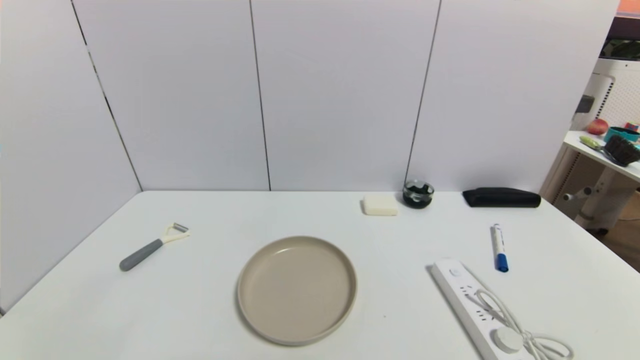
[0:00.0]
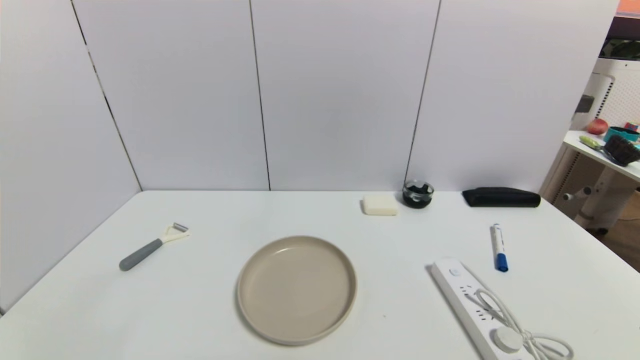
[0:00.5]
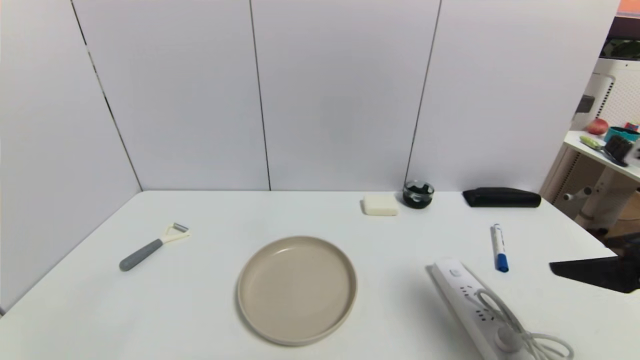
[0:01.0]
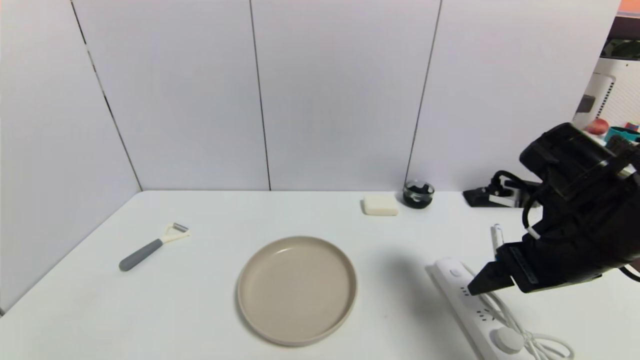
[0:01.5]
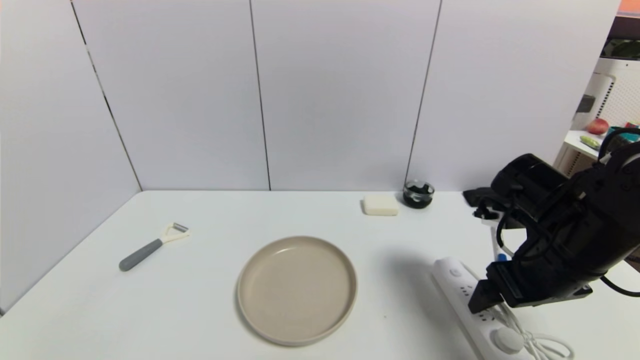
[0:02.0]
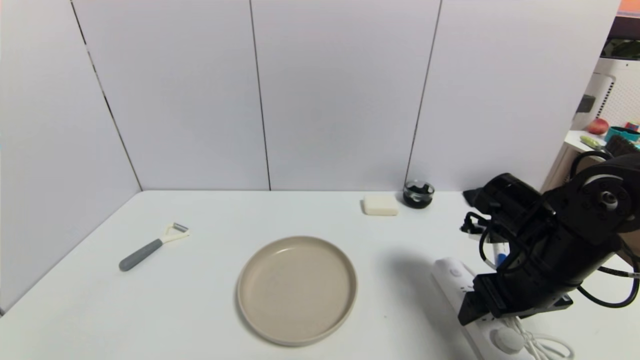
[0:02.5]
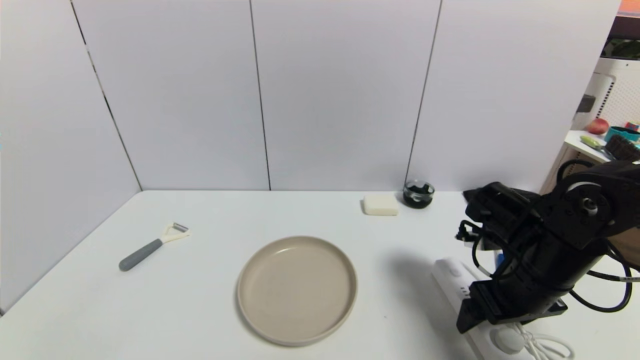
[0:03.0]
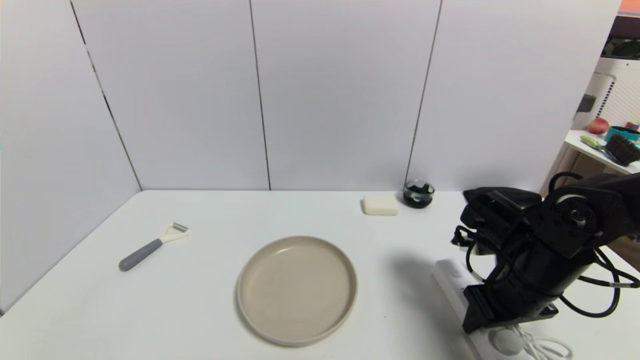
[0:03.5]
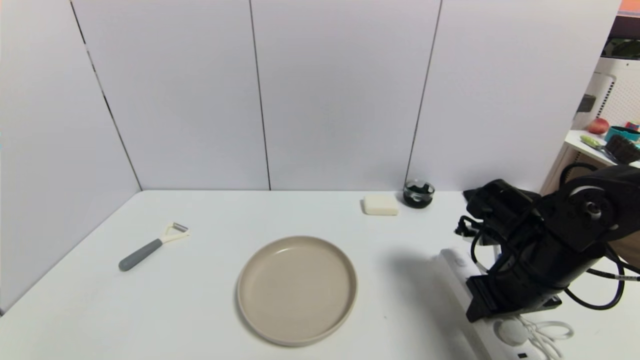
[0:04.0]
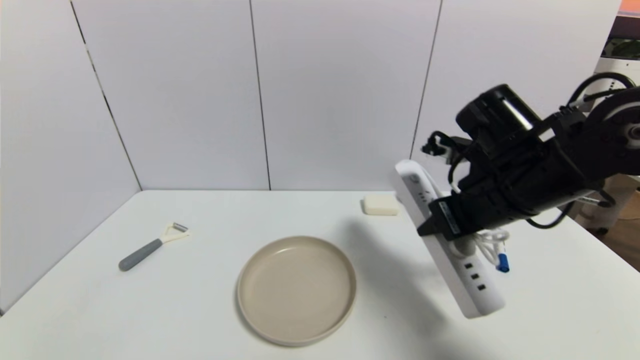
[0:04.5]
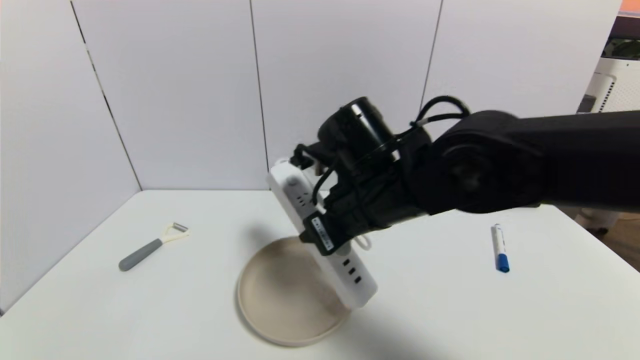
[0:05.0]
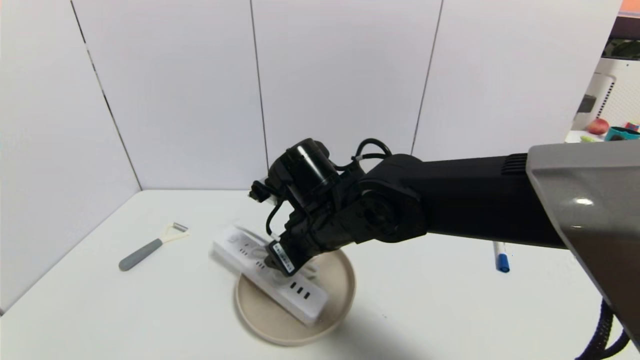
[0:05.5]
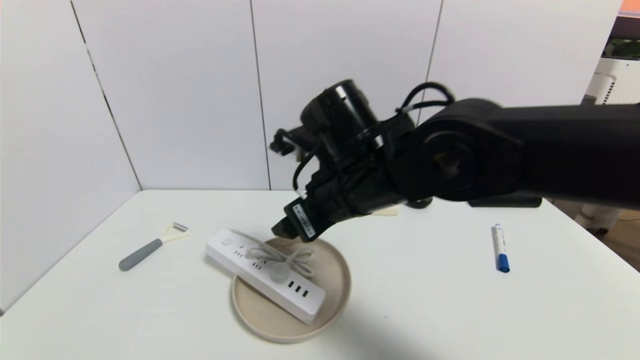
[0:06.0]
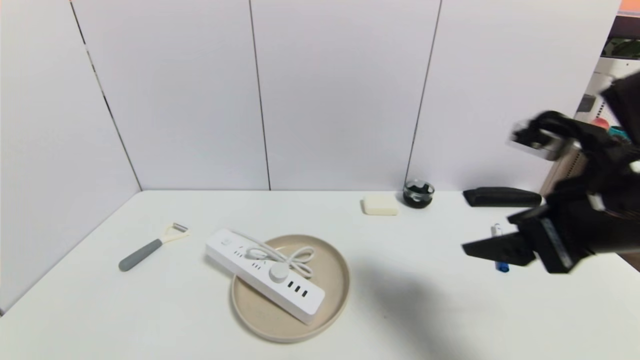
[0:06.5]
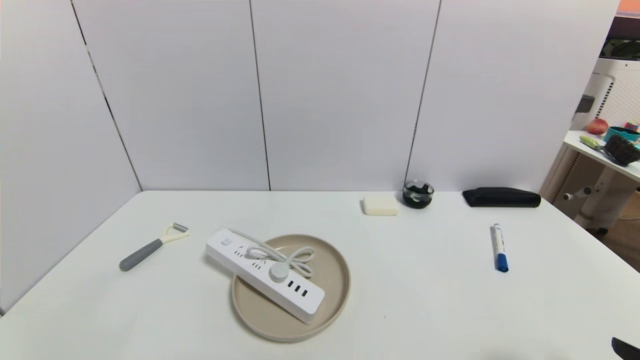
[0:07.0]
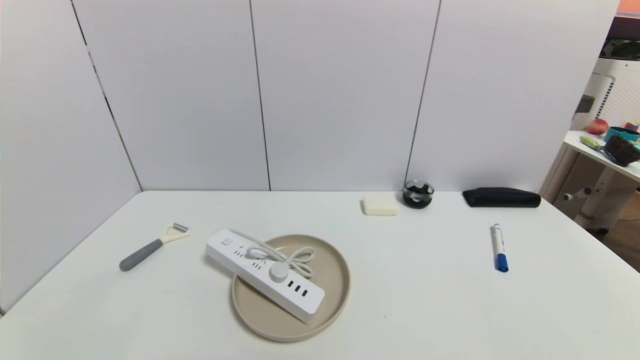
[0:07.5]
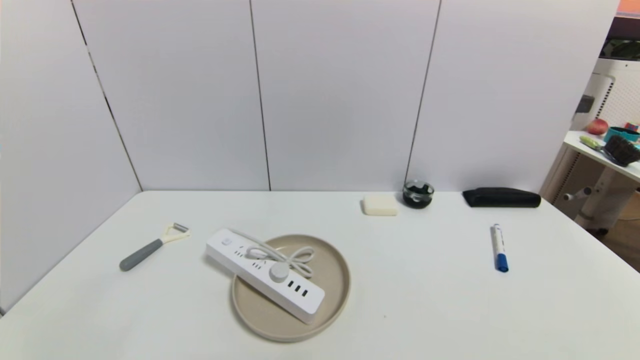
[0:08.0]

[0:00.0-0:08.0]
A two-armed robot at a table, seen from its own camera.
Task of the whole recording: use a gripper to pick the target object and place on the brown plate.
Step, 0:00.0 to 0:03.5: Grasp the plugboard with the right gripper.
Step, 0:04.0 to 0:05.5: Place the plugboard on the brown plate with the right gripper.
0:00.0 to 0:02.0: The right gripper travels forward by some 25 cm.
0:02.0 to 0:04.0: The right gripper closes its fingers.
0:04.0 to 0:06.0: The right gripper moves to the left and upward, about 25 cm, and opens its fingers.
0:06.0 to 0:08.0: The right gripper goes approximately 40 cm to the right, backward and downward.

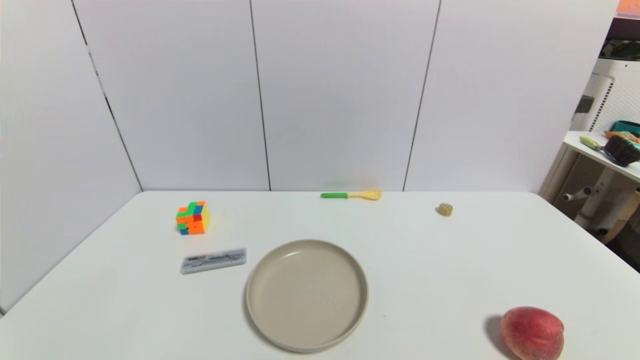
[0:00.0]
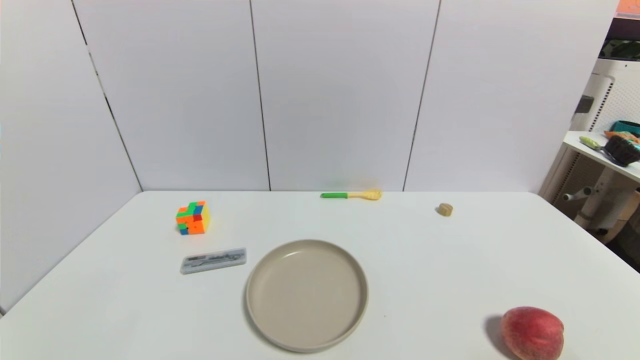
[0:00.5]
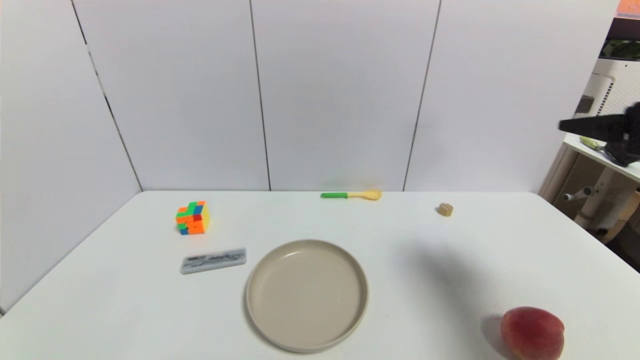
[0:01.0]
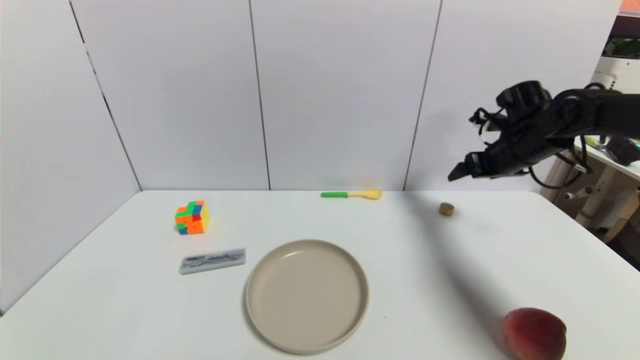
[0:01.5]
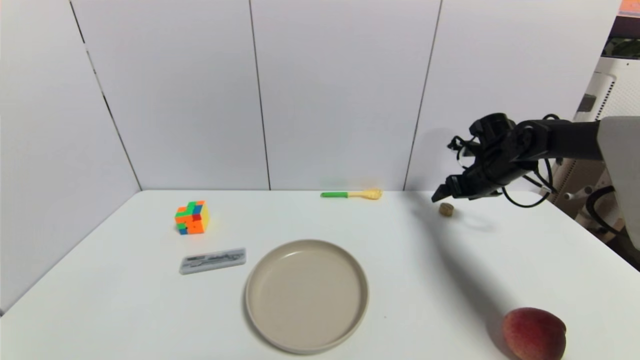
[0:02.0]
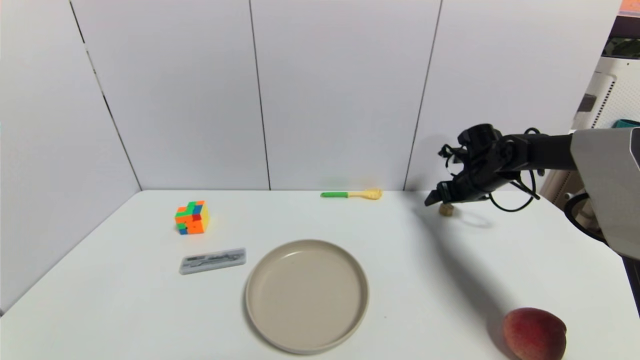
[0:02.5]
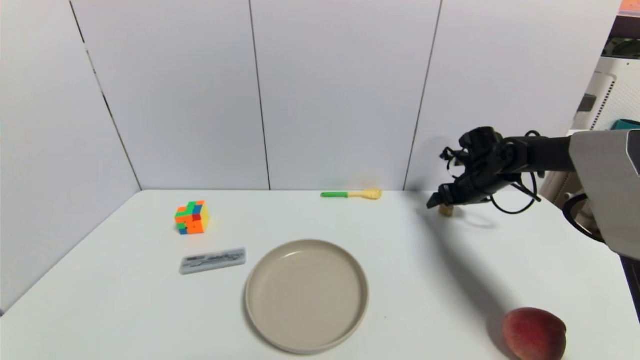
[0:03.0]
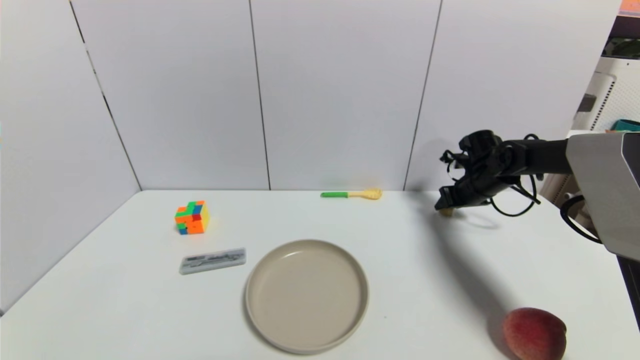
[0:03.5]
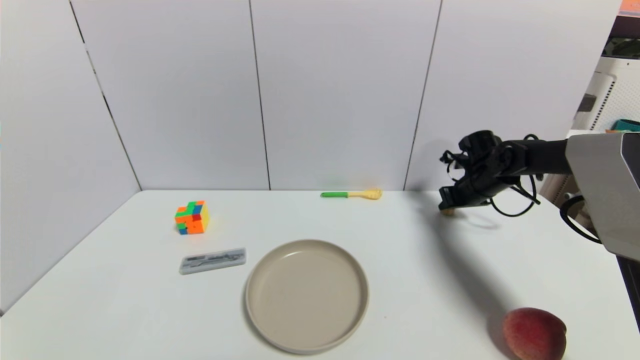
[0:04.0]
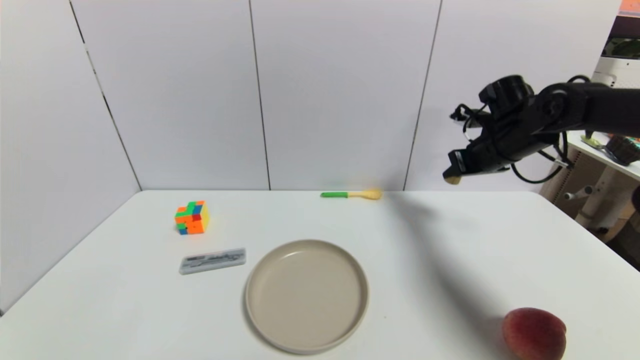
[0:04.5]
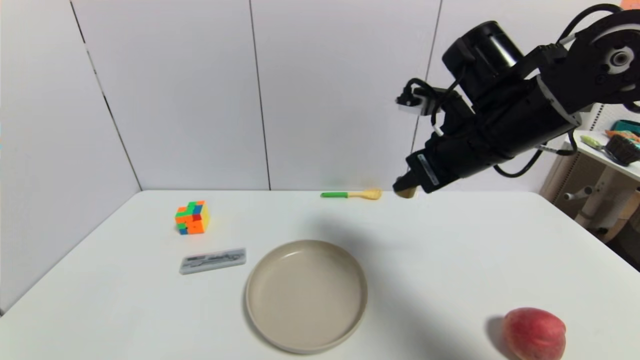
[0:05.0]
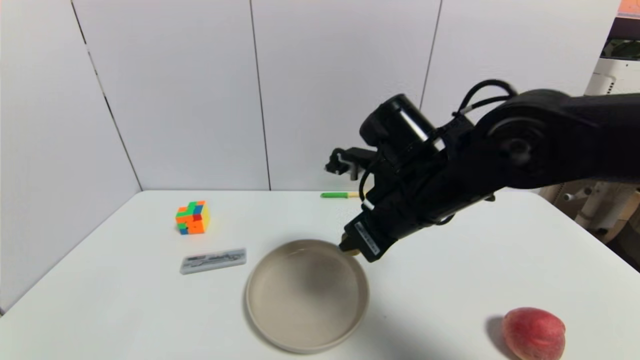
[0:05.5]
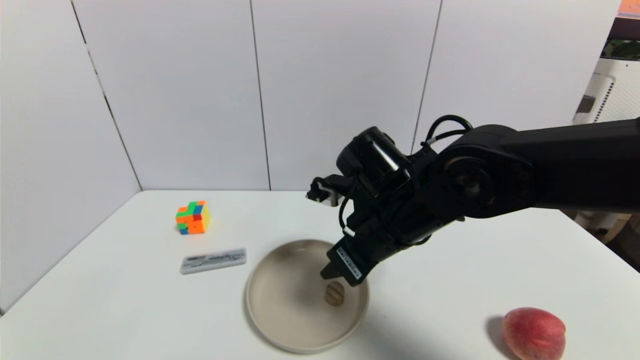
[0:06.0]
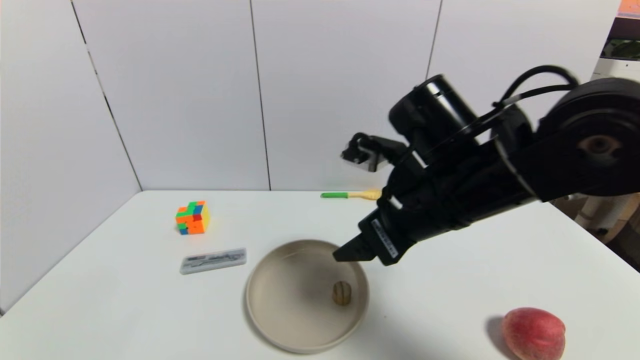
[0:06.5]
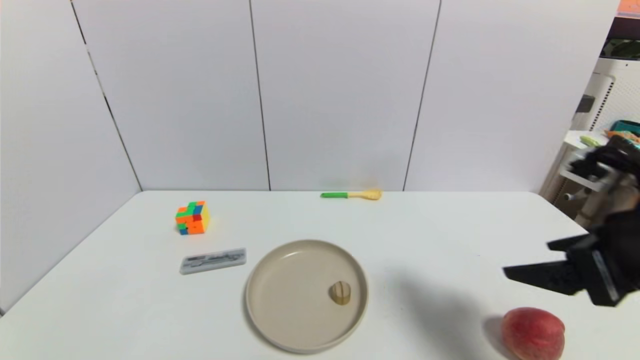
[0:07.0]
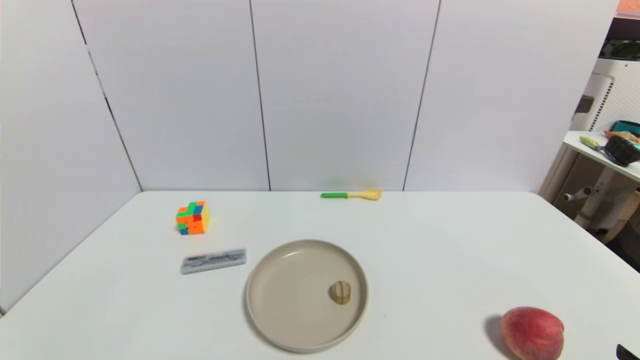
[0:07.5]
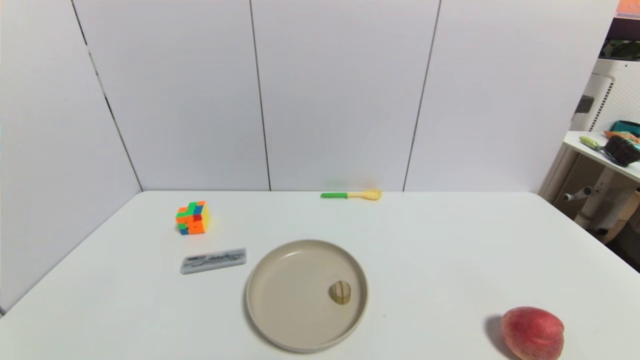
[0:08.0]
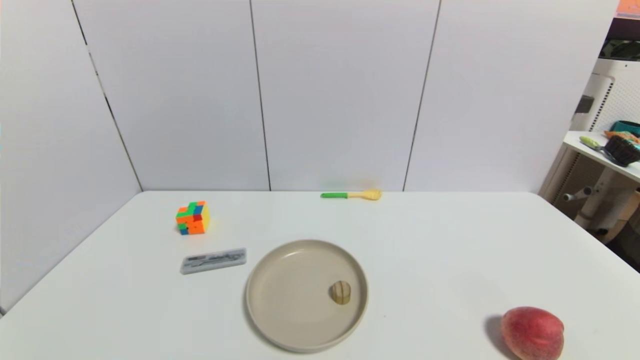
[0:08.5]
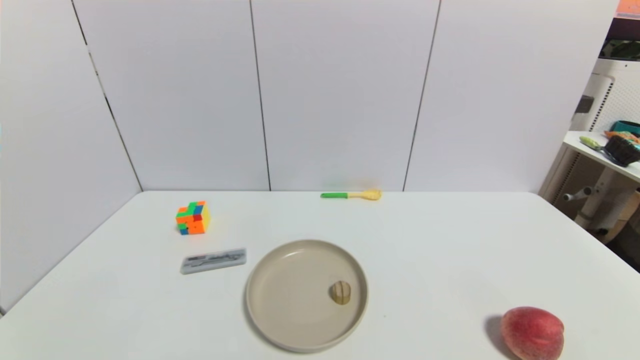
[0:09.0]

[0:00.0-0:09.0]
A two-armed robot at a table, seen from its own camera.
Task of the whole recording: use a gripper to pick the target object and place on the brown plate.
Step, 0:00.0 to 0:03.5: Grasp the round wooden block with the right gripper.
Step, 0:04.0 to 0:06.0: Place the round wooden block on the brown plate with the right gripper.
0:00.0 to 0:02.0: The right gripper is displaced forward by approximately 50 cm.
0:02.0 to 0:04.5: The right gripper goes roughly 10 cm upward and backward, and closes up.
0:04.5 to 0:07.0: The right gripper travels backward by roughly 25 cm, and opens up.
0:07.0 to 0:09.0: The right gripper goes about 25 cm backward and downward.

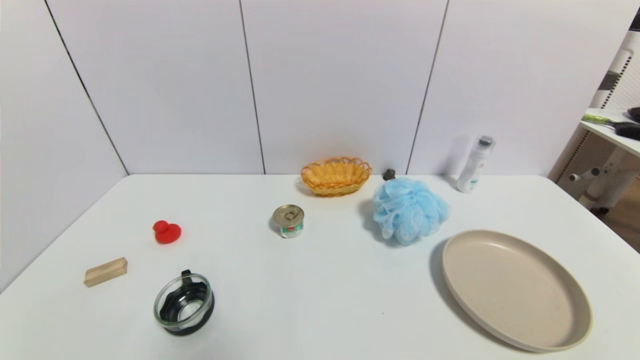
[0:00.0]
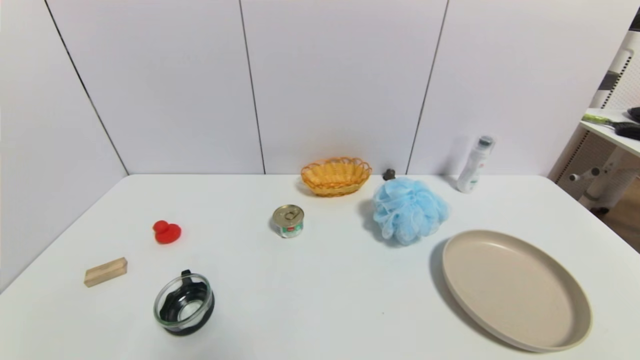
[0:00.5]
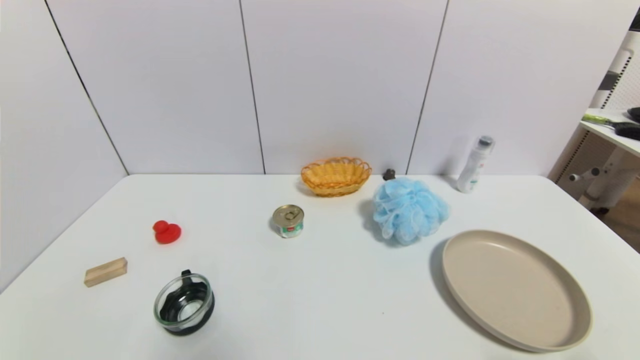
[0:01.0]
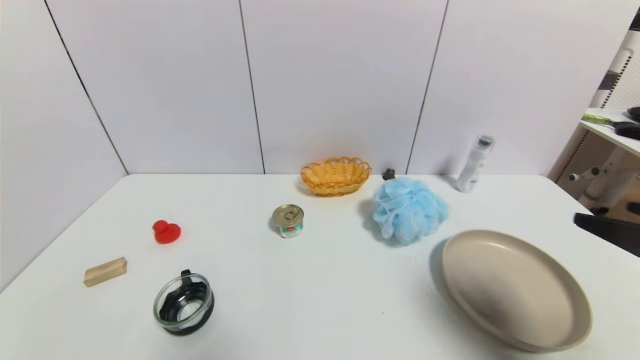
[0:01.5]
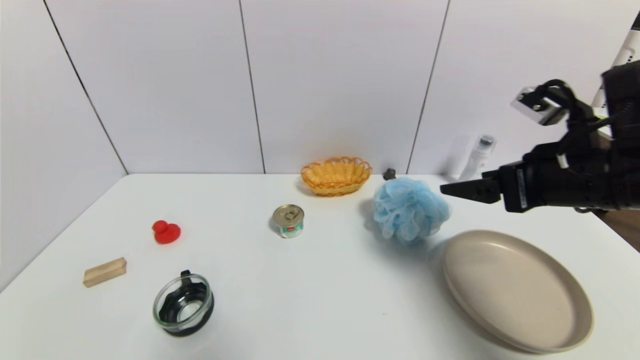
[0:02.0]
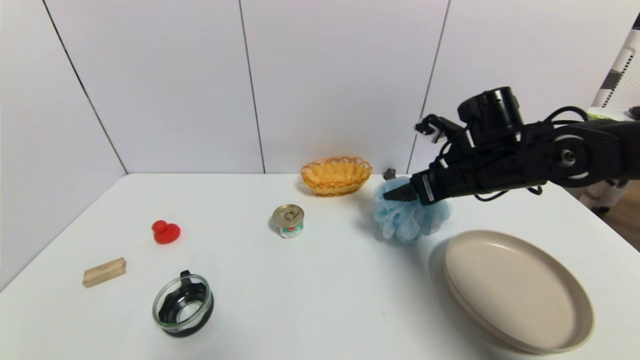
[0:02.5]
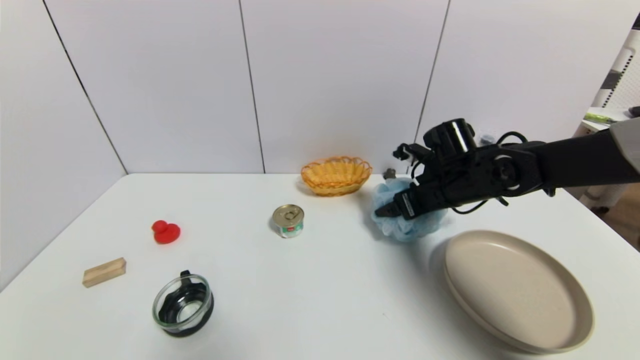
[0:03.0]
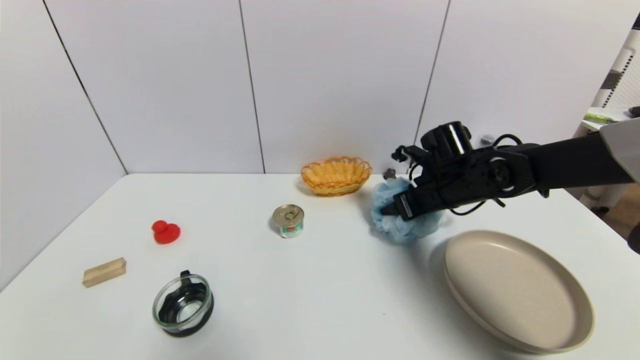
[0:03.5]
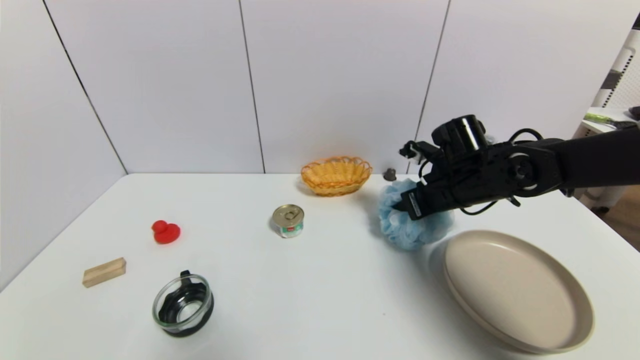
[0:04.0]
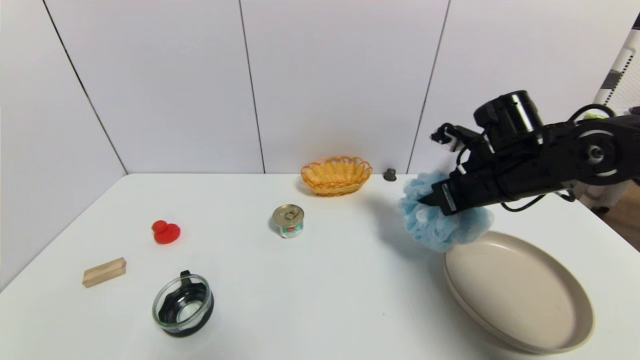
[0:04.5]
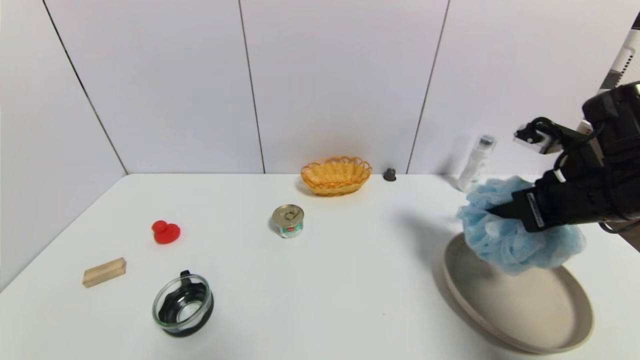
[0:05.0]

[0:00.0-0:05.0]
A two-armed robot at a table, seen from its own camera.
Task of the whole recording: use a gripper to pick the target object and place on the brown plate.
Step, 0:00.0 to 0:03.5: Grasp the shower sphere with the right gripper.
0:00.0 to 0:02.5: The right gripper moves forward, some 35 cm.
0:02.5 to 0:05.0: The right gripper heads backward and to the right, covering roughly 10 cm, and closes up.
